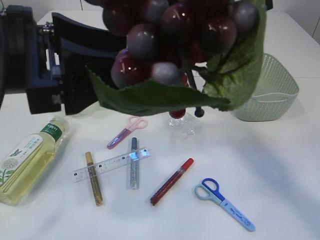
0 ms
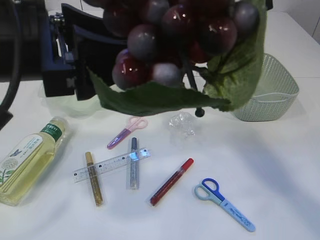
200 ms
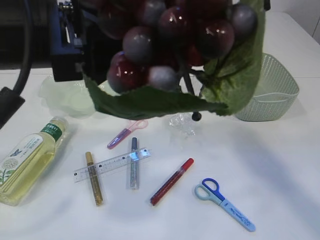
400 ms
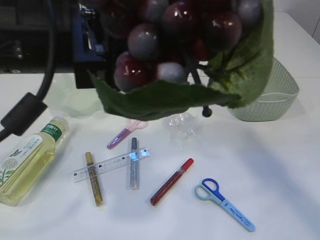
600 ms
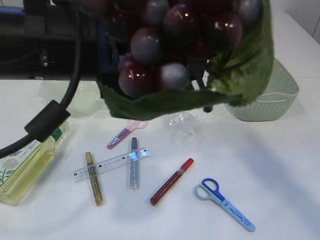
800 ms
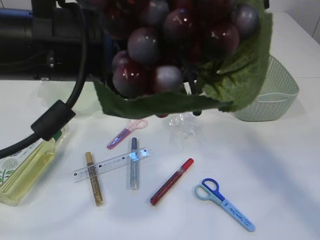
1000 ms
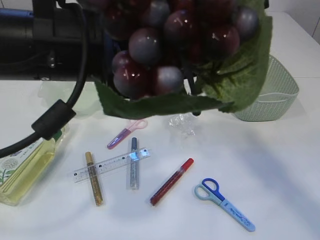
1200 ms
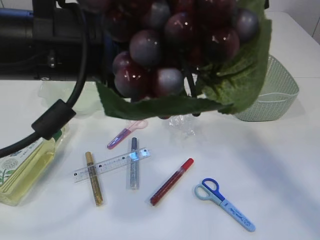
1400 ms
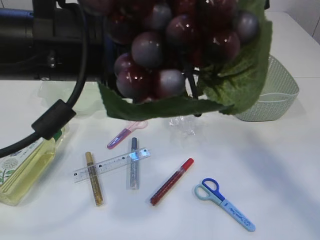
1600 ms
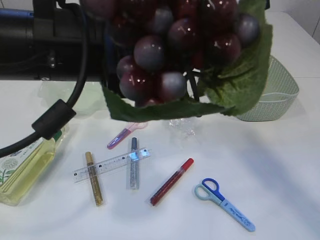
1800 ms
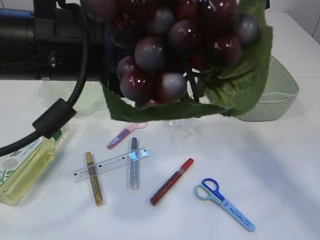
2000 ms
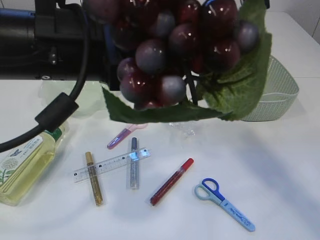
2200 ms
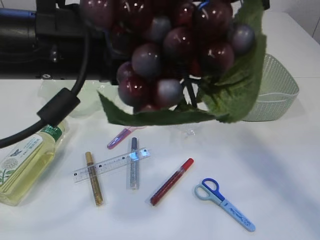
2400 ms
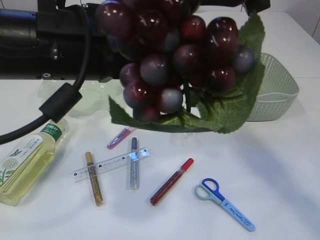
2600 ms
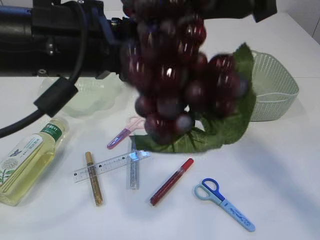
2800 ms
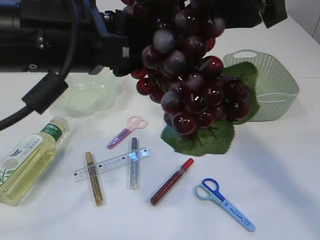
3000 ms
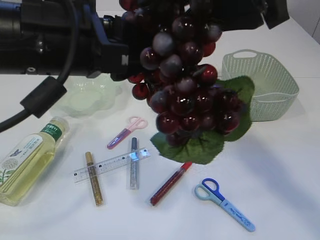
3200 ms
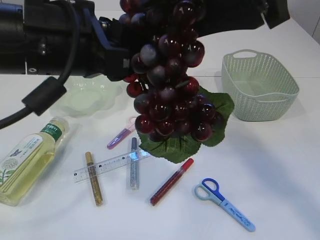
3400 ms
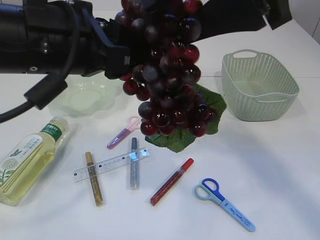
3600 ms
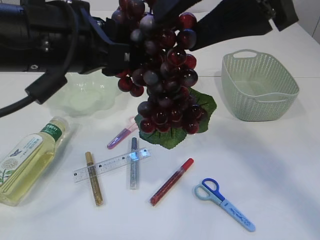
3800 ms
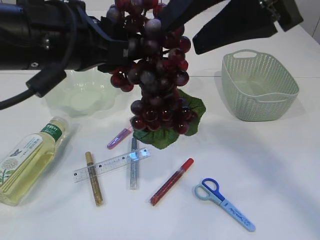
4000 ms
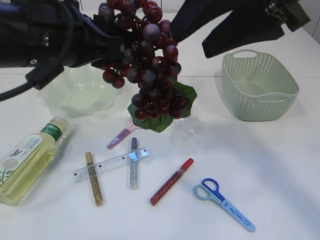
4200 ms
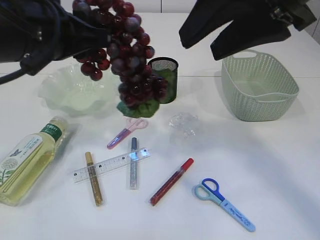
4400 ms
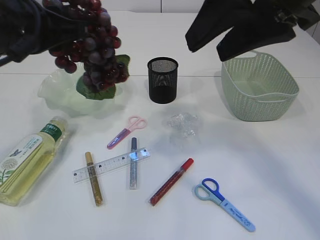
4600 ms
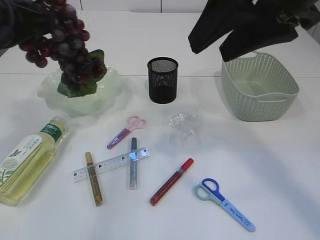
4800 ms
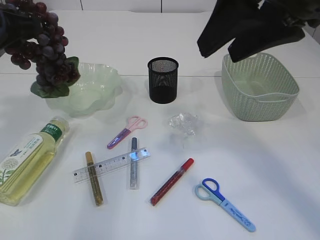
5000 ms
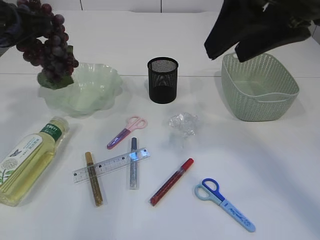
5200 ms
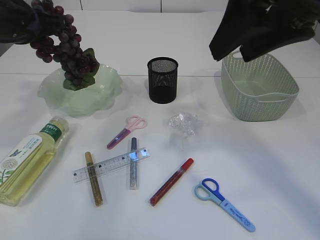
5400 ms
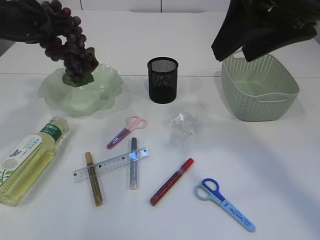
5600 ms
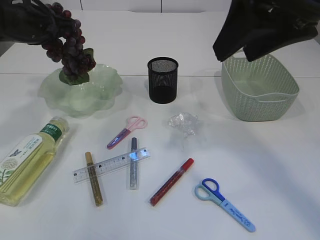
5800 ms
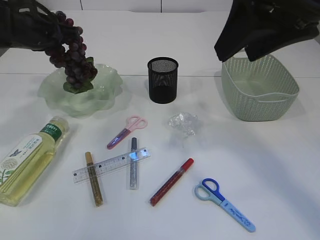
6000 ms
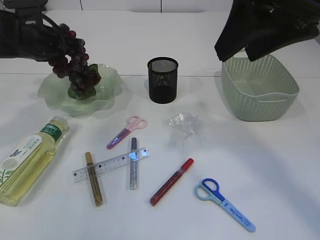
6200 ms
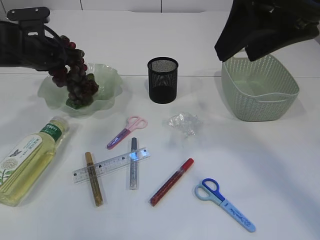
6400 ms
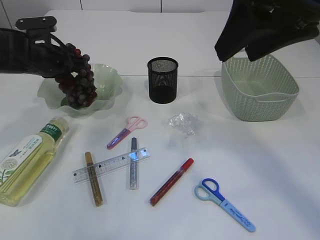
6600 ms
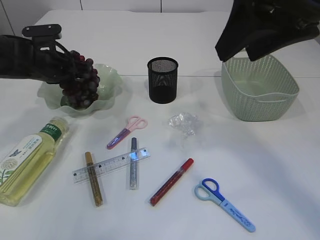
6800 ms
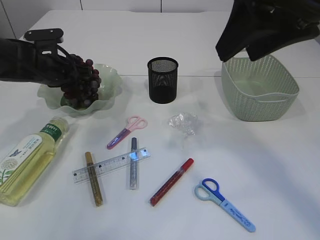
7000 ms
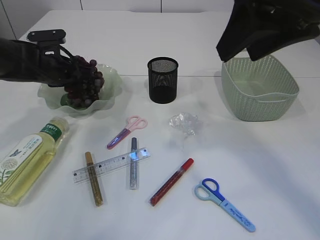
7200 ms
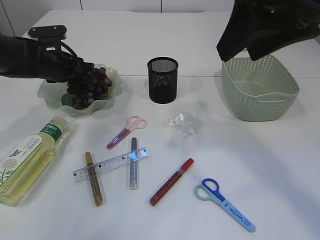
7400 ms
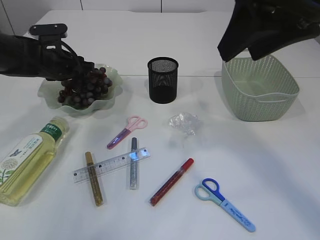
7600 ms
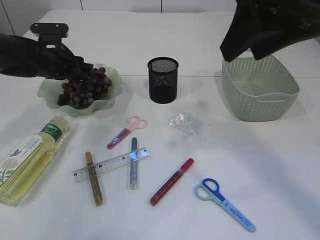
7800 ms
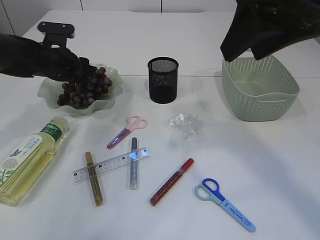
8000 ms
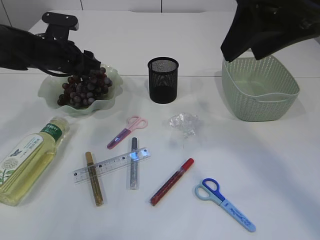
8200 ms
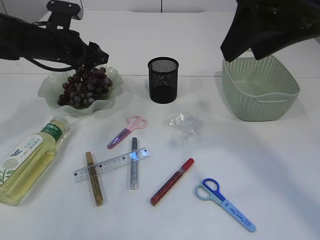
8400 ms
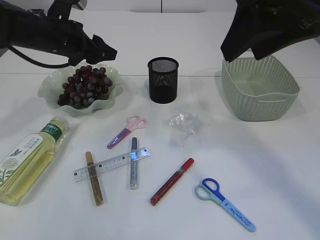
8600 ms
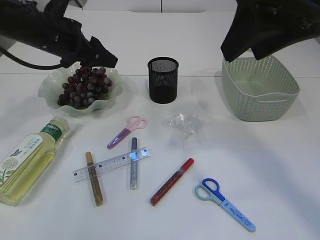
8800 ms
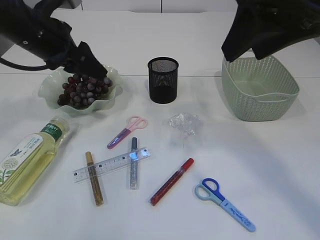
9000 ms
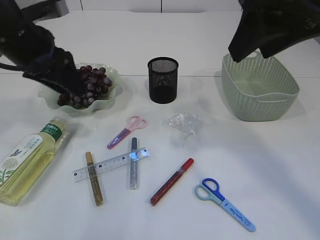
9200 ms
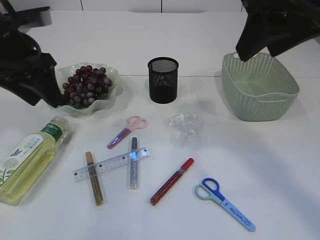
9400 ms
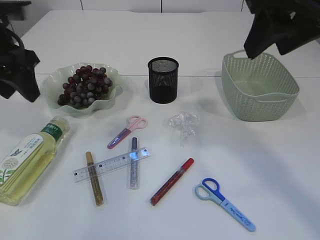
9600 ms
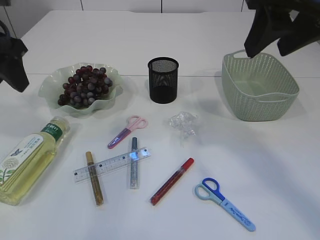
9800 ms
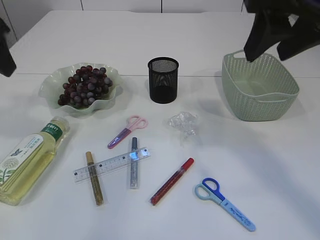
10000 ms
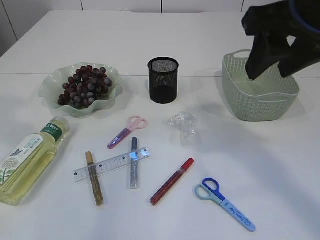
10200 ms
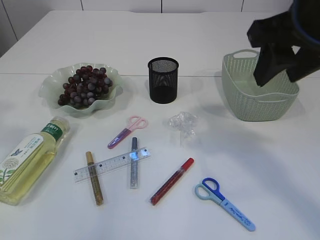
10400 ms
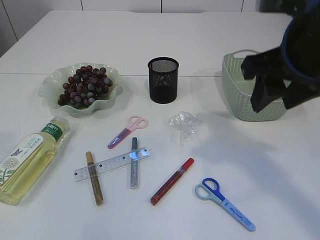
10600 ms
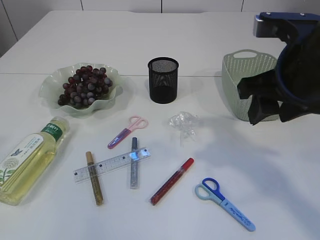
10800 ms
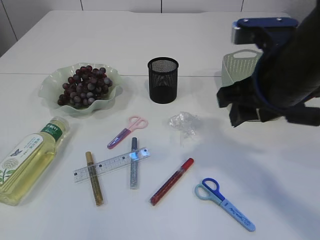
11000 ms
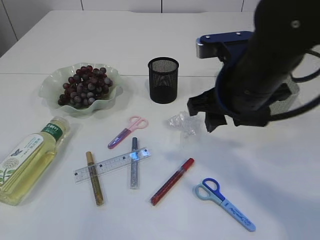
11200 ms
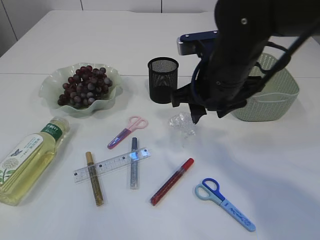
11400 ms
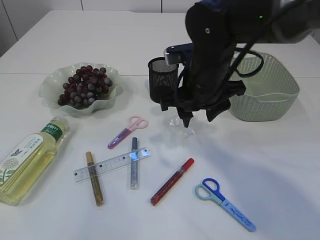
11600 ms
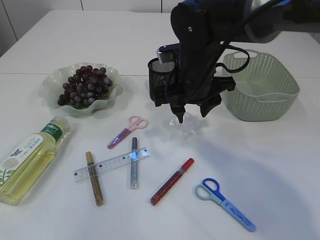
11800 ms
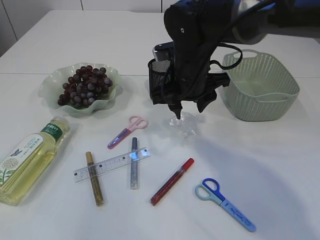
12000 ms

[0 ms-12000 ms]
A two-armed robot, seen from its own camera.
Step, 0 ms to 4200 ms: Hand over the grapes.
Step, 4400 ms to 8600 ms: Place the grapes in the plate.
0 ms to 1600 ms: The left gripper travels to the right by some 5 cm, and closes up.
1600 ms to 3000 ms: The right gripper opens up.
3000 ms to 4400 ms: The left gripper shifts by about 5 cm.
4400 ms to 6000 ms: The left gripper is displaced forward and to the left by roughly 20 cm.
6000 ms to 7600 ms: The left gripper heads downward, covering approximately 10 cm, and opens.
7600 ms to 9000 ms: The left gripper is displaced upward and backward by about 15 cm.
9000 ms to 10400 ms: The left gripper travels backward, upward and to the left by approximately 25 cm.
10400 ms to 12000 ms: The right gripper goes about 25 cm downward, forward and to the left, while the left gripper moves backward, roughly 10 cm.

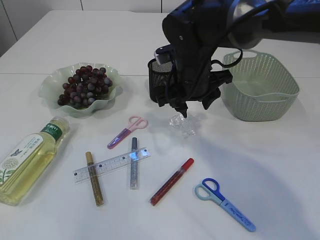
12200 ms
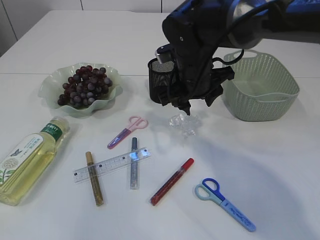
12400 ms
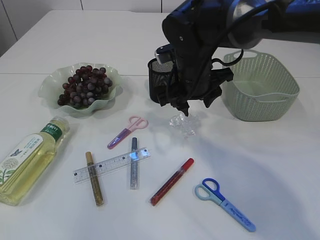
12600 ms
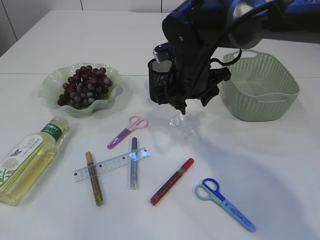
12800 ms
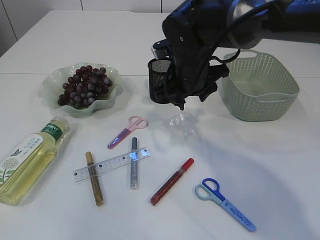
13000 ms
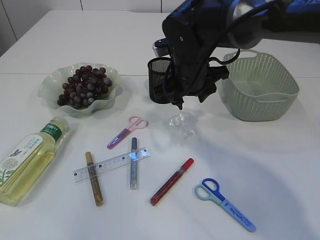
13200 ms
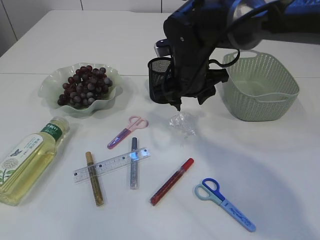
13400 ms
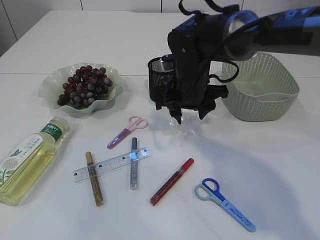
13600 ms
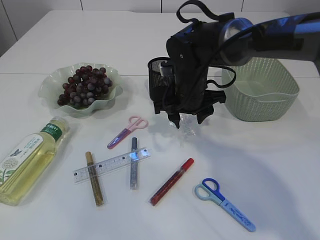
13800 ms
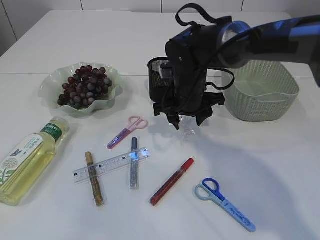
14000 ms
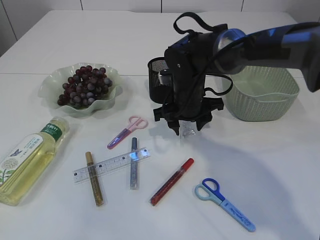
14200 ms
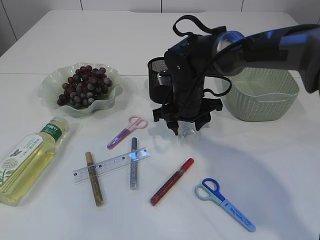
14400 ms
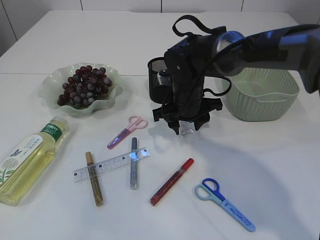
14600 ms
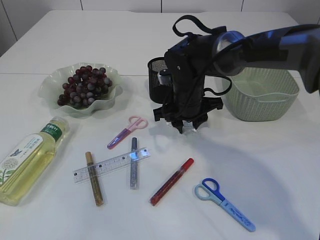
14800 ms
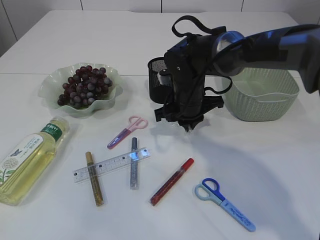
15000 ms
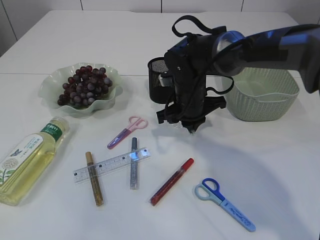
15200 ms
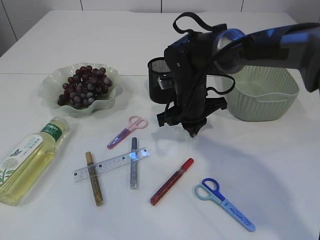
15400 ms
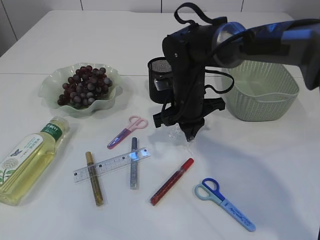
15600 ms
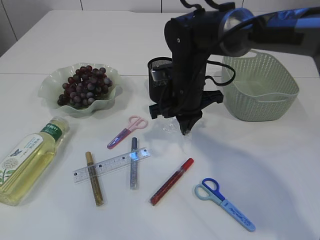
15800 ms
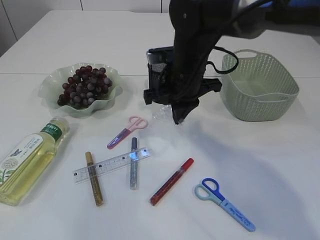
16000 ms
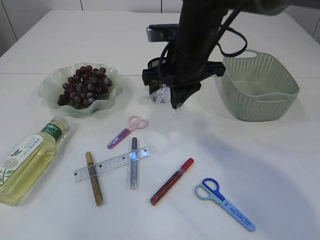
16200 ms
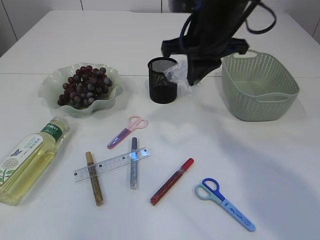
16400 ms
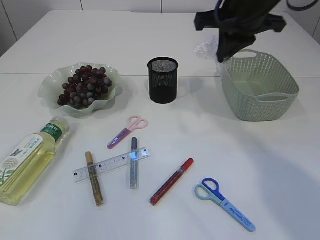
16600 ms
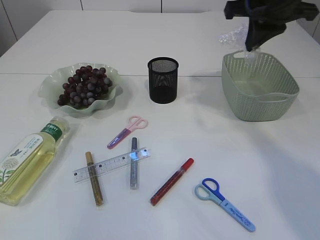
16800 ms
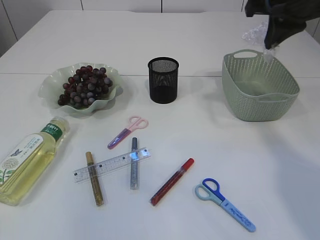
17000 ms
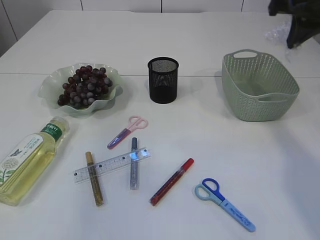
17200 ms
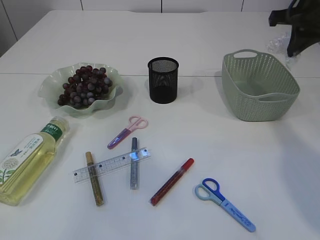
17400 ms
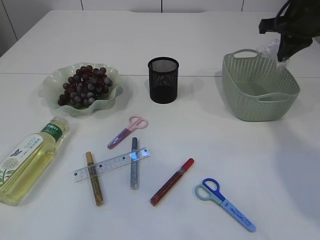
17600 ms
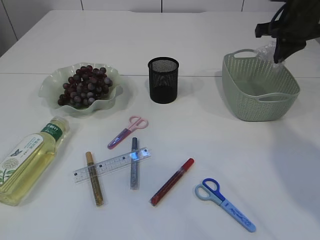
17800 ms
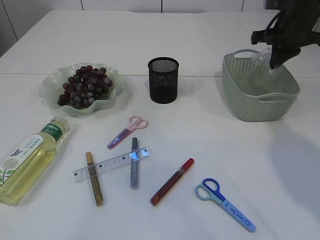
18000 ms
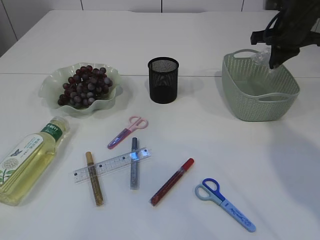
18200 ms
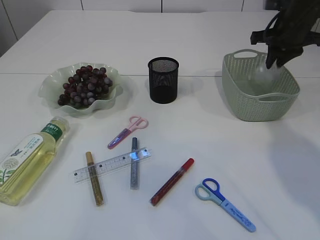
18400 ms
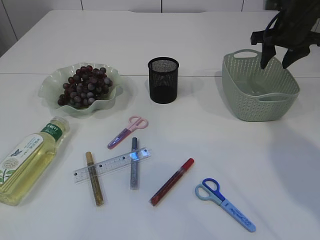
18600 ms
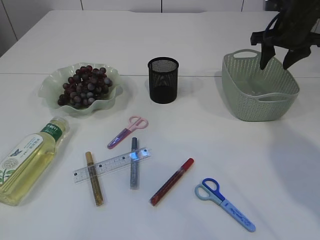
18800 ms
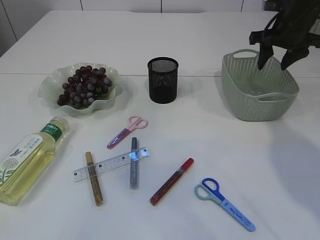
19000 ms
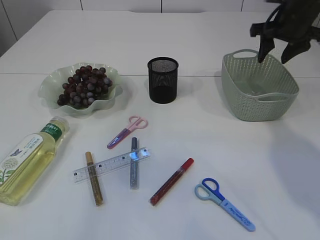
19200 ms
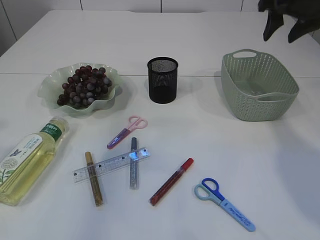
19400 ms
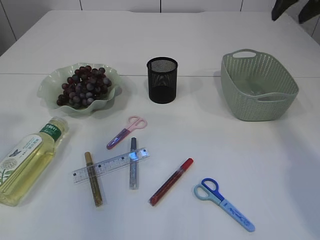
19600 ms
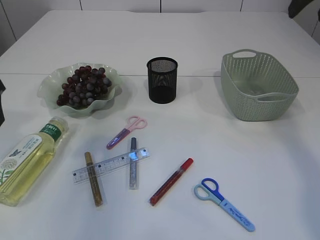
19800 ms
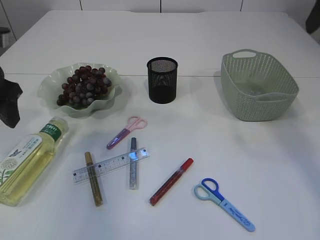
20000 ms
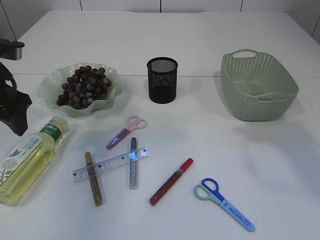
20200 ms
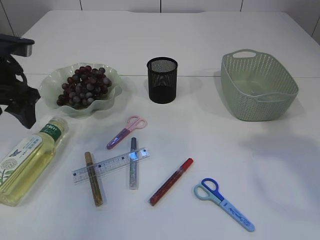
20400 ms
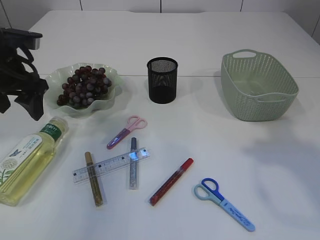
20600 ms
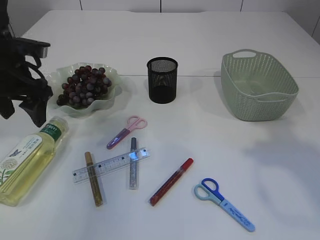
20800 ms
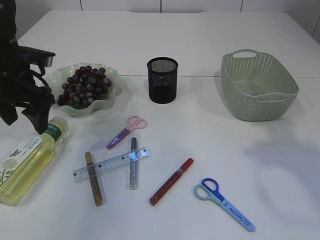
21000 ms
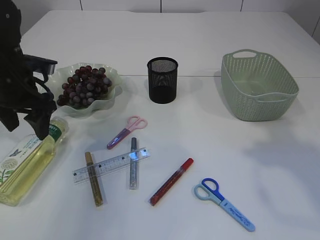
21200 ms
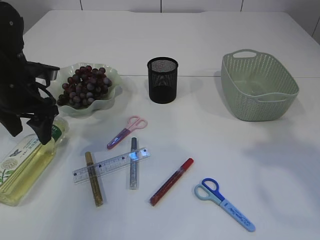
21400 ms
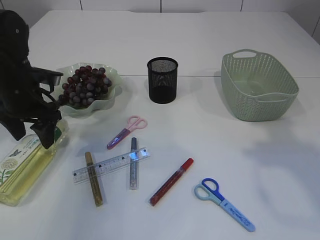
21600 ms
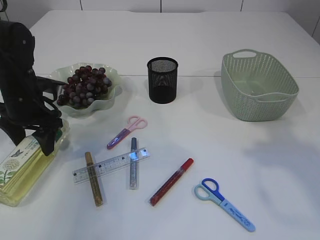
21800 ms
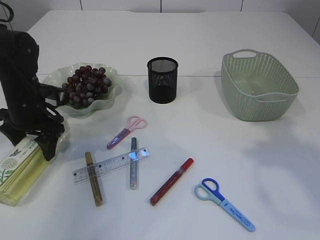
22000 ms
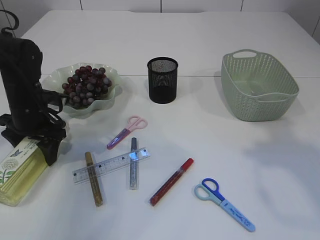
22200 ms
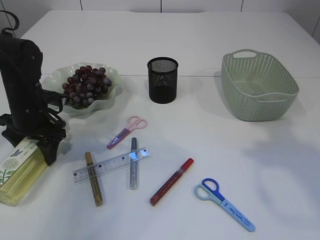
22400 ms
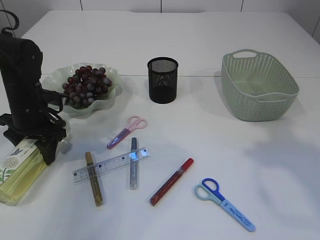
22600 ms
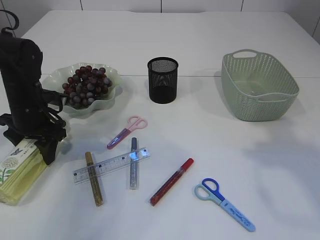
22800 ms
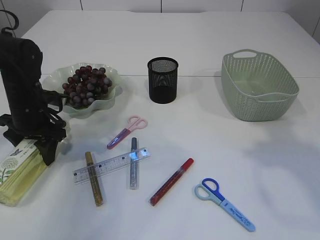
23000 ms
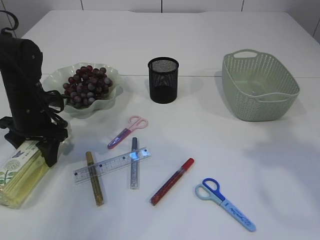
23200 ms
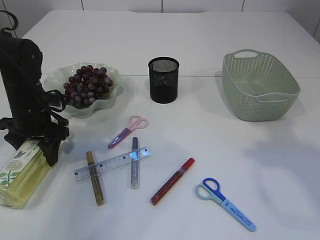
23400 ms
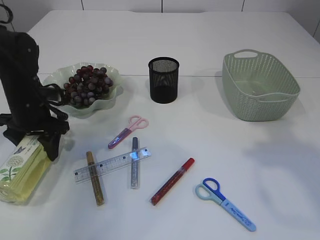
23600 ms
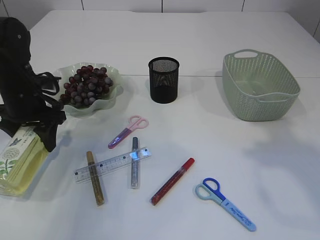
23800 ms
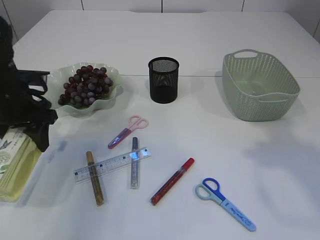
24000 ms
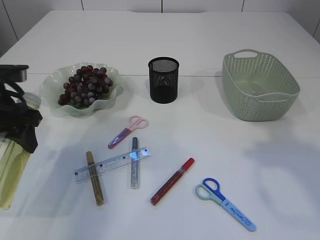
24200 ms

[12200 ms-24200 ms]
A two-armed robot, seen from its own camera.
Step, 12200 ms to 16000 ms: Pick up the plastic.
Step, 16200 ms to 19400 ms: Place the plastic in the basket.
Step, 19600 ms to 24000 ms: Pick up the bottle with the left arm.
12200 ms to 13800 ms: There are only small adjustments of the grippers.
13800 ms to 15200 ms: The right gripper closes.
15200 ms to 16600 ms: The right gripper moves upward and to the right, roughly 20 cm.
16600 ms to 18200 ms: The right gripper travels to the right, forward and downward by approximately 20 cm.
18200 ms to 19800 ms: The right gripper shifts some 15 cm upward and backward, and opens. Meanwhile the left gripper moves forward and downward, about 20 cm, and opens its fingers.
19800 ms to 21200 ms: The left gripper moves forward and downward, about 15 cm. The right gripper is displaced backward by some 15 cm.
21200 ms to 22600 ms: The left gripper shifts some 10 cm downward.
22600 ms to 24200 ms: The left gripper moves upward and backward, some 10 cm.
